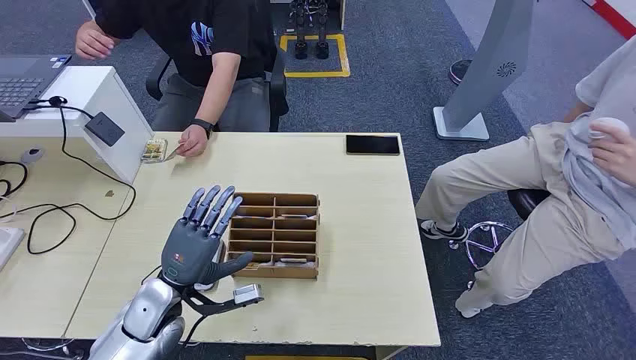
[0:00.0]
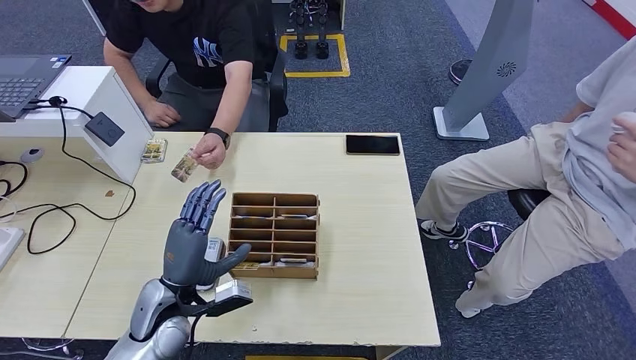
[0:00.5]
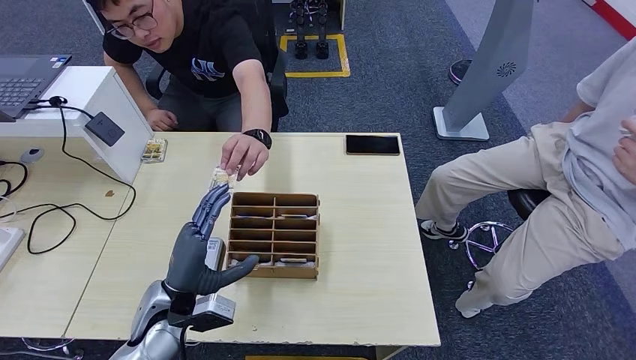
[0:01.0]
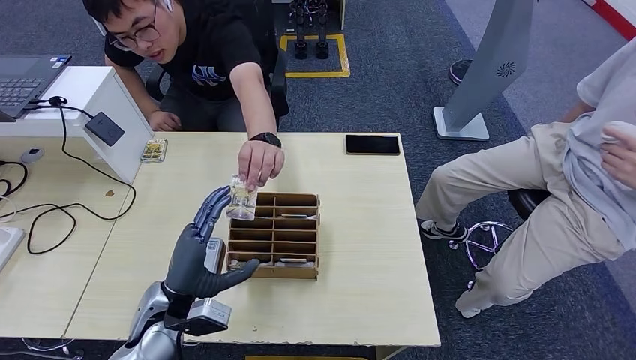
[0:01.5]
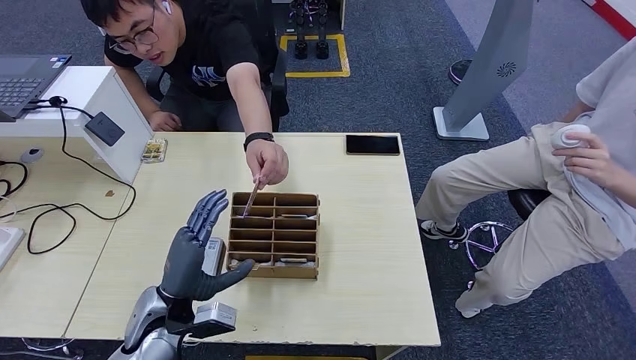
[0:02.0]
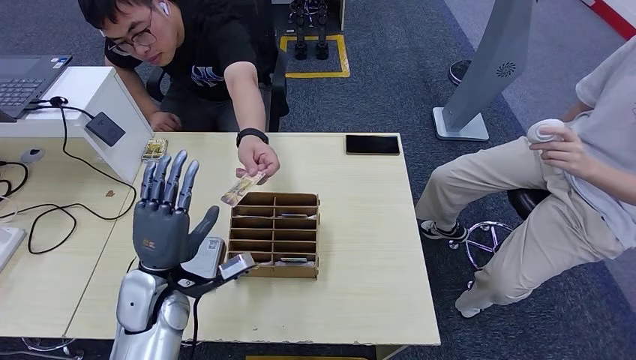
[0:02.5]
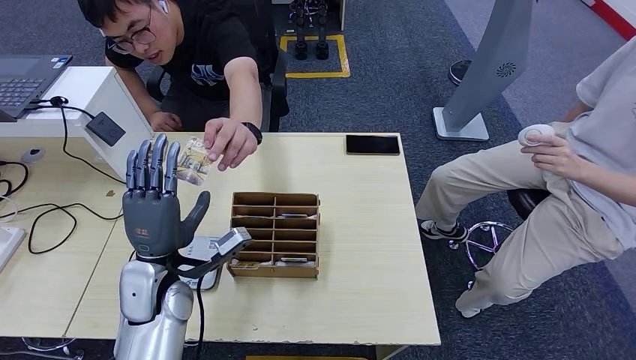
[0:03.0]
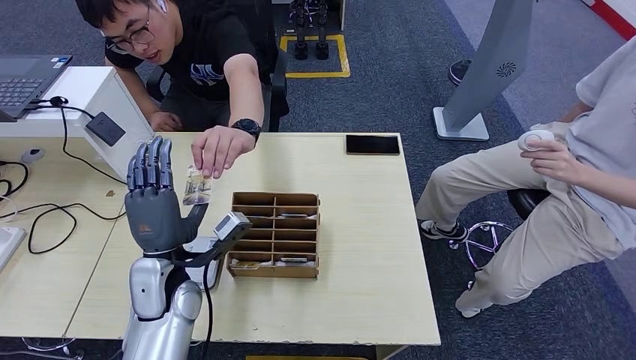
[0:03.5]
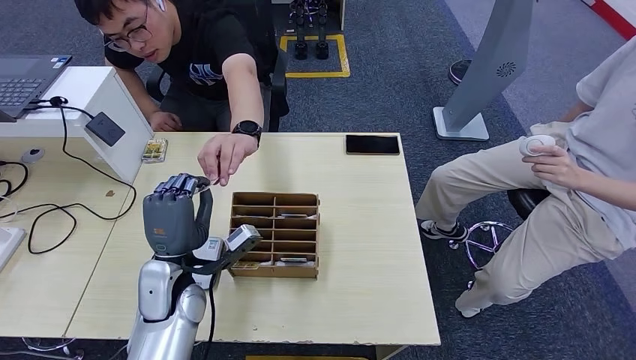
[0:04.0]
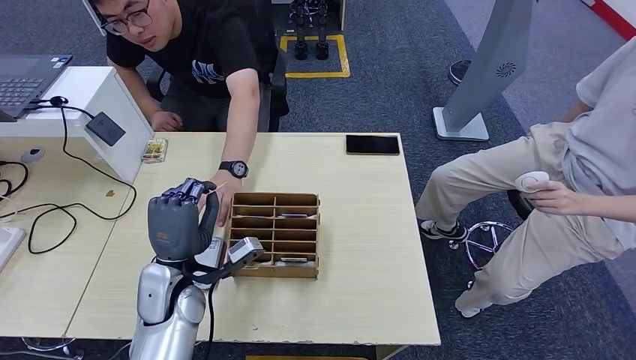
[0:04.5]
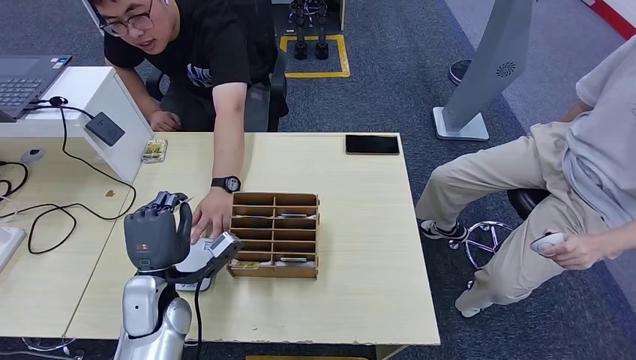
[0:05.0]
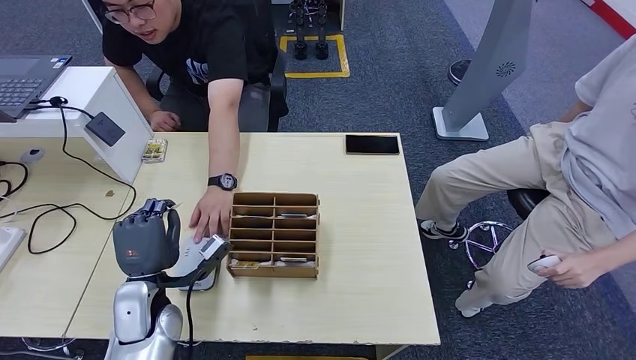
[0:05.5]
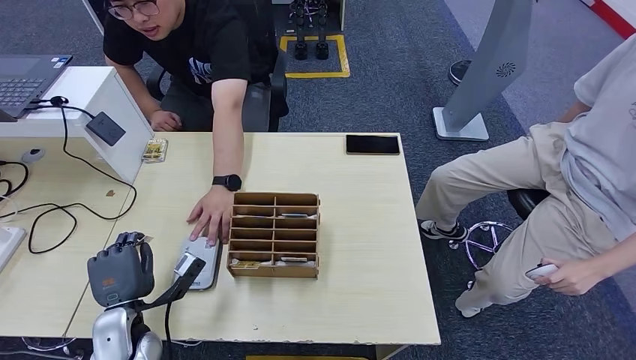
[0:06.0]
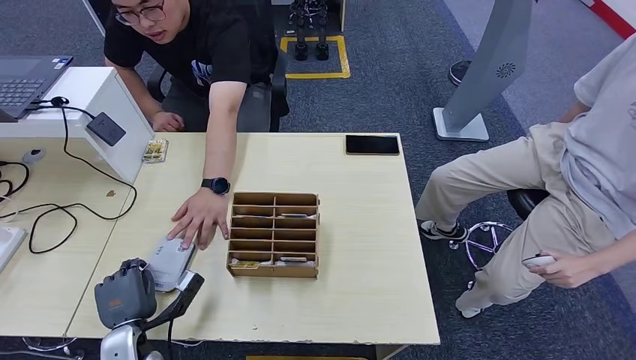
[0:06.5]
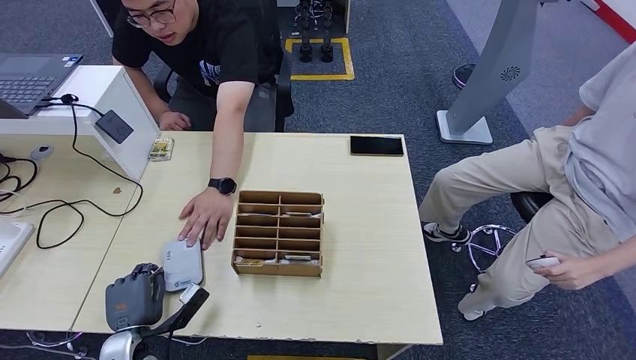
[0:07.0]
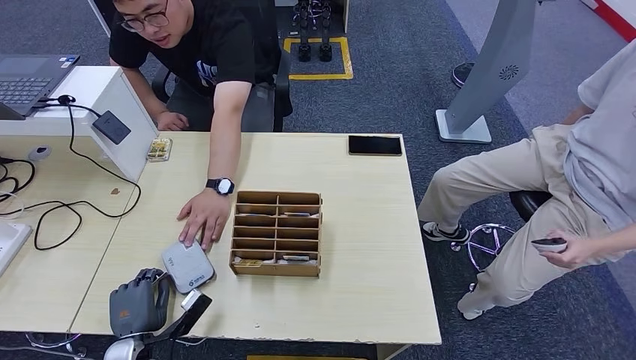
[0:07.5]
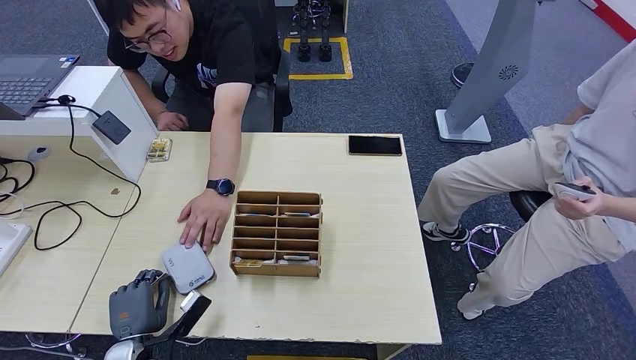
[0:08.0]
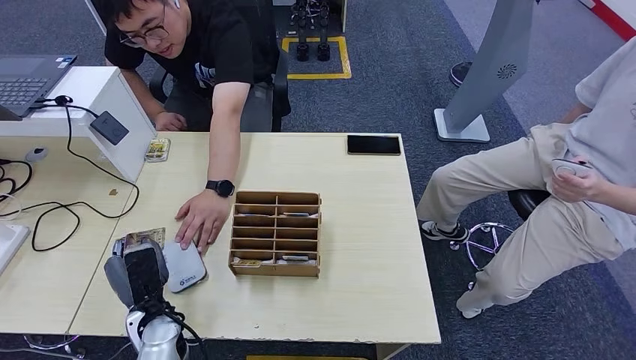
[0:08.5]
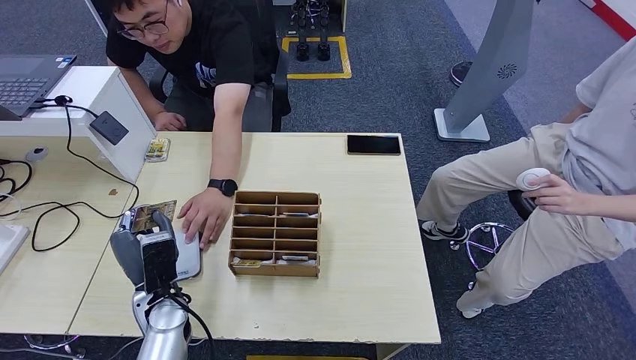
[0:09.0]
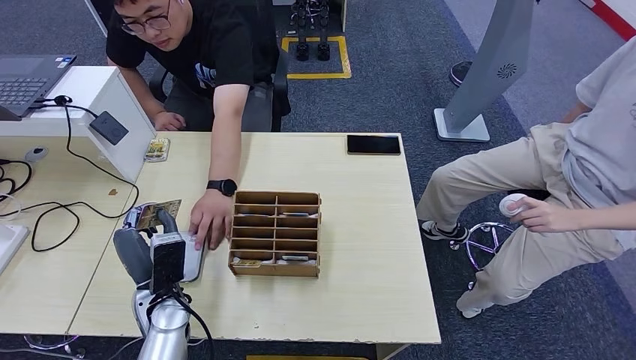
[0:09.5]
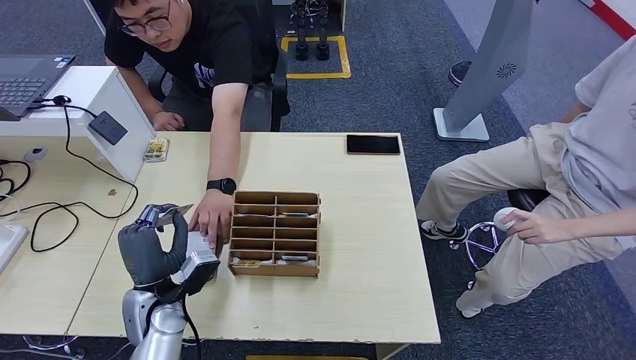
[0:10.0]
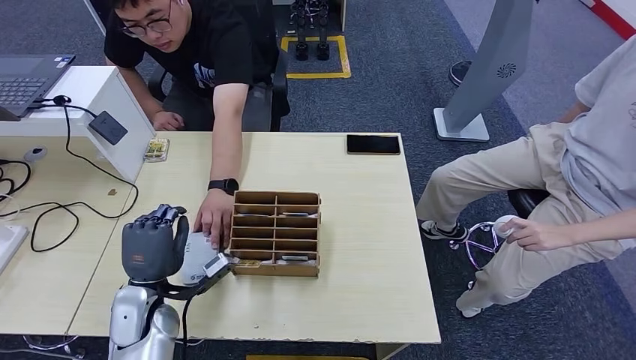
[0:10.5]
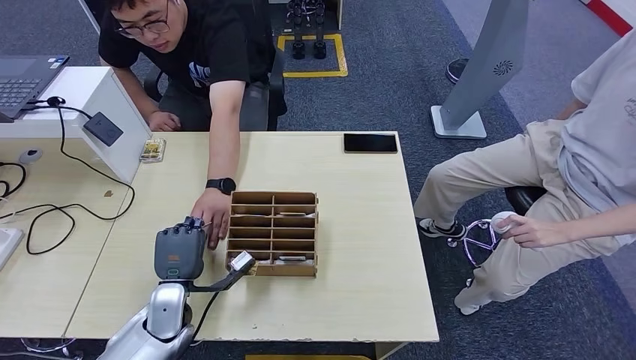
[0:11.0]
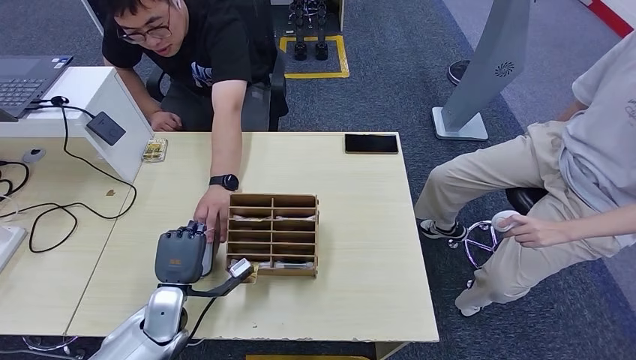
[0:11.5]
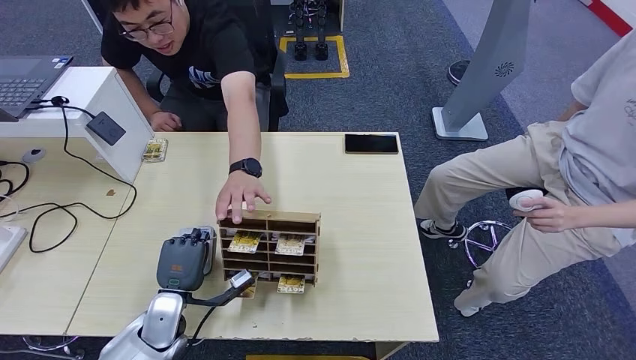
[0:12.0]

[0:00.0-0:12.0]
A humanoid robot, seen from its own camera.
Step, 0:00.0 to 0:04.0: Take the ID card from the person's hand.
0:02.0 to 0:04.0: The left hand heads forward, covering about 5 cm.
0:04.0 to 0:06.0: The left hand travels to the left, downward and backward by about 15 cm.
0:06.0 to 0:08.0: The left hand shifts about 5 cm downward.
0:08.0 to 0:10.0: The left hand travels upward, forward and to the right by about 15 cm.
0:10.0 to 0:12.0: The left hand shifts about 10 cm downward.

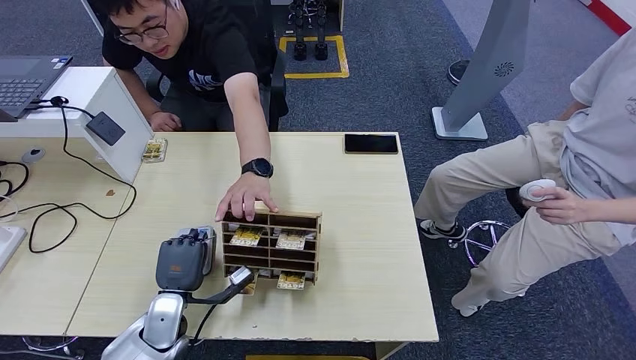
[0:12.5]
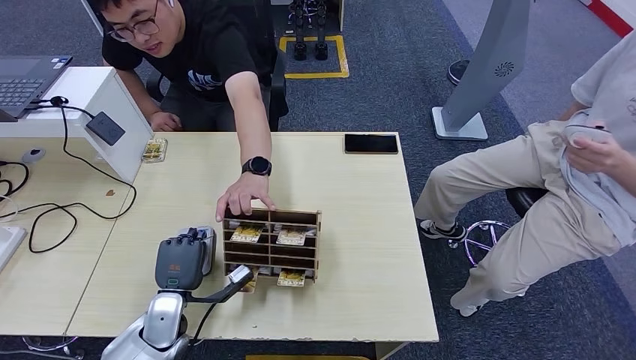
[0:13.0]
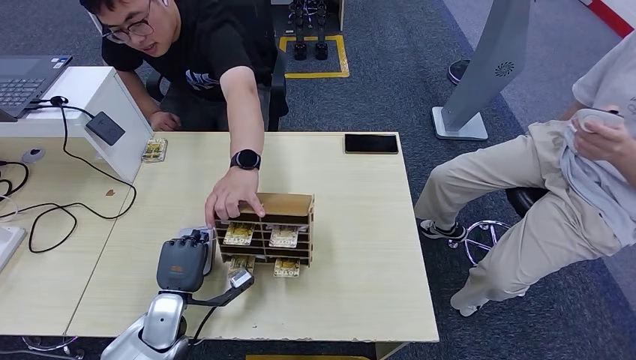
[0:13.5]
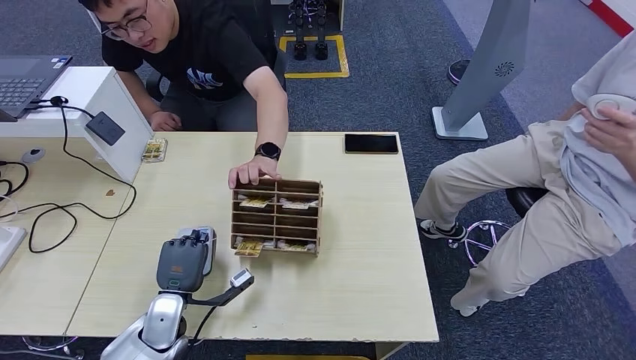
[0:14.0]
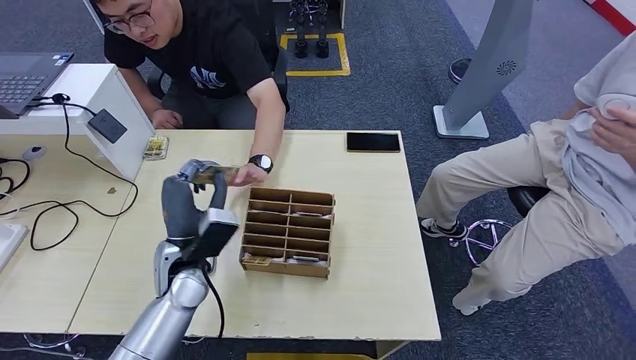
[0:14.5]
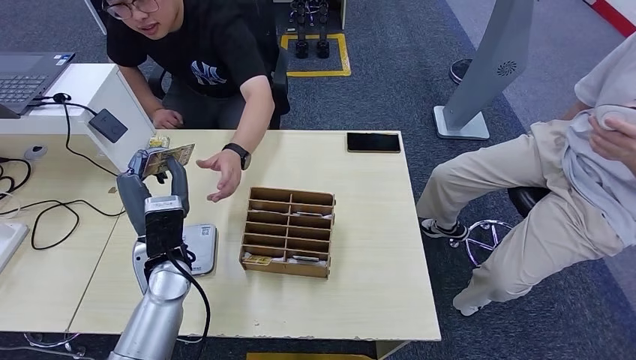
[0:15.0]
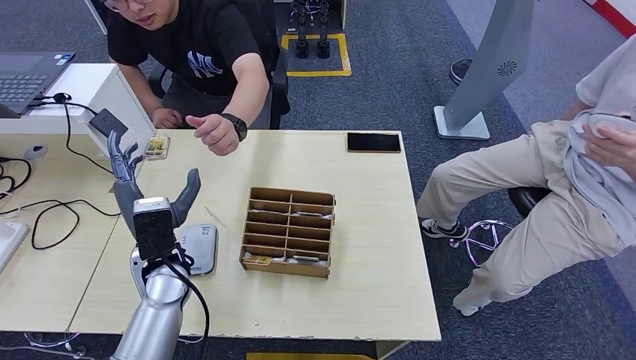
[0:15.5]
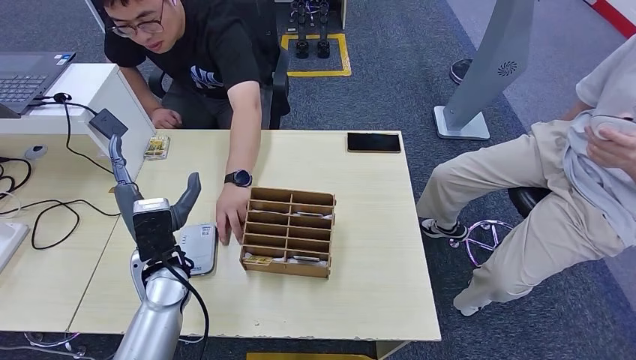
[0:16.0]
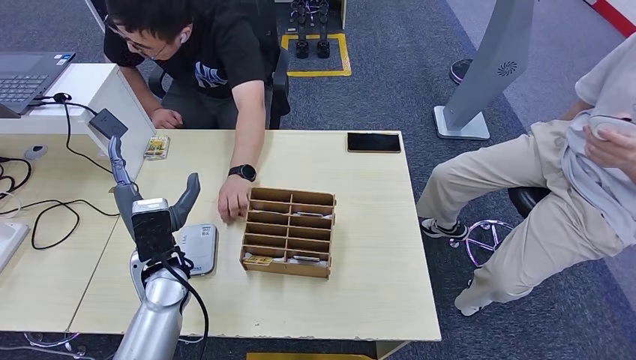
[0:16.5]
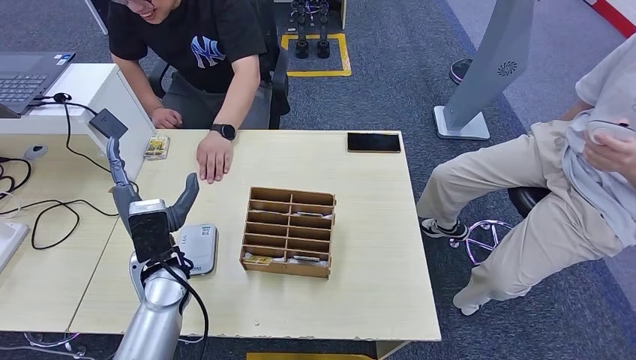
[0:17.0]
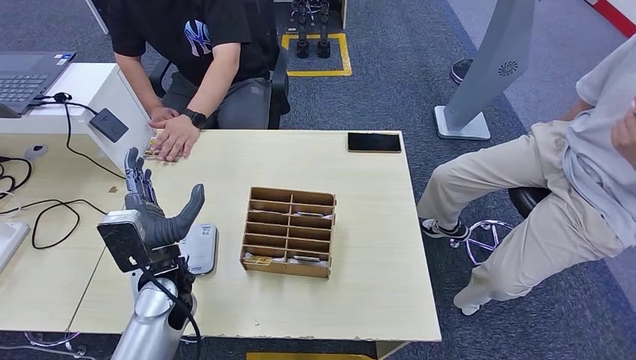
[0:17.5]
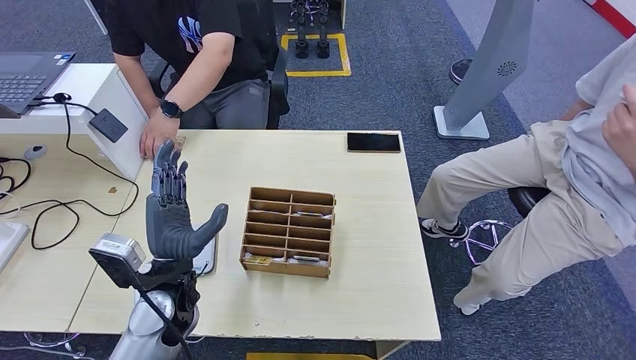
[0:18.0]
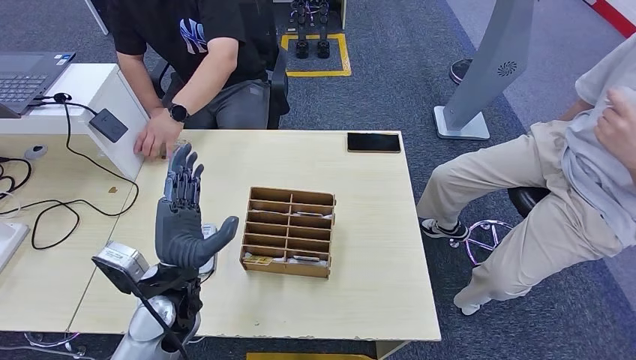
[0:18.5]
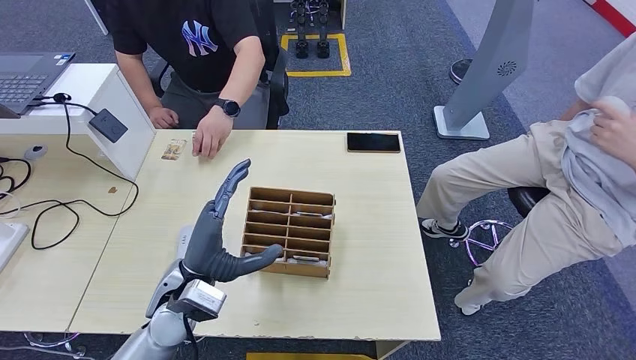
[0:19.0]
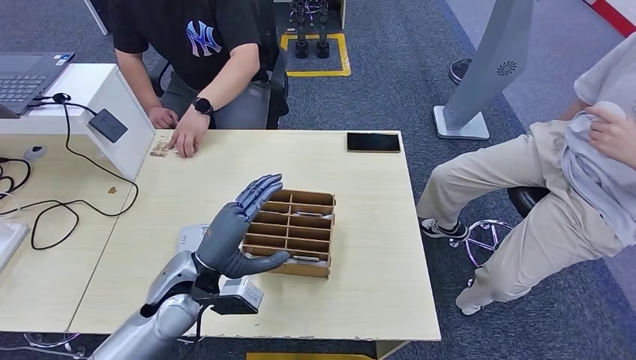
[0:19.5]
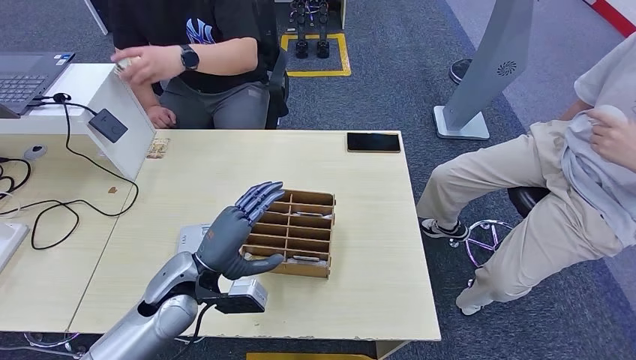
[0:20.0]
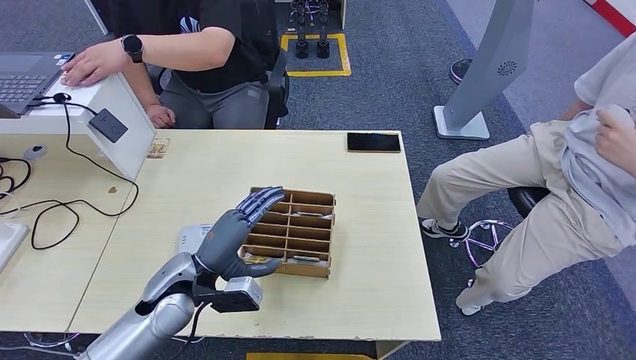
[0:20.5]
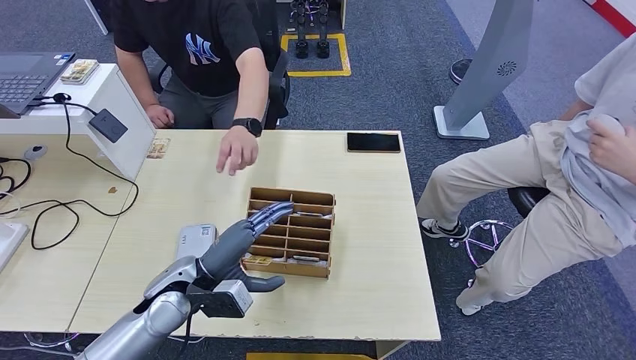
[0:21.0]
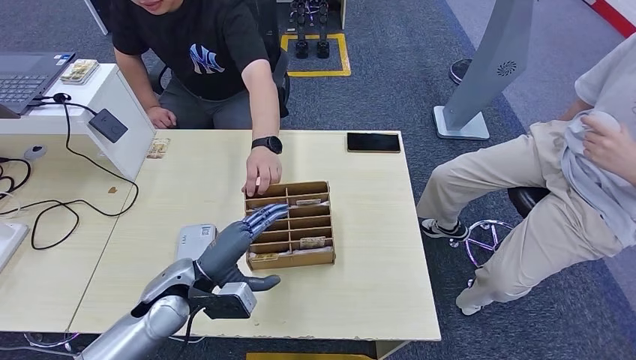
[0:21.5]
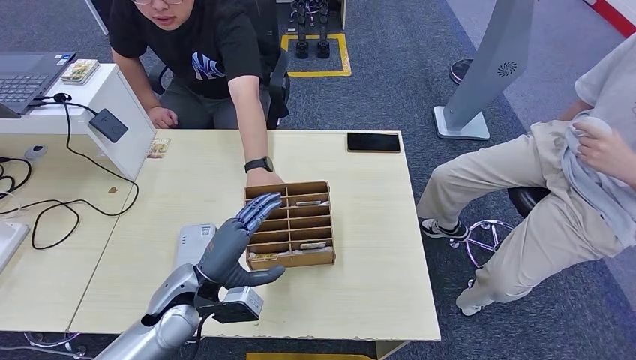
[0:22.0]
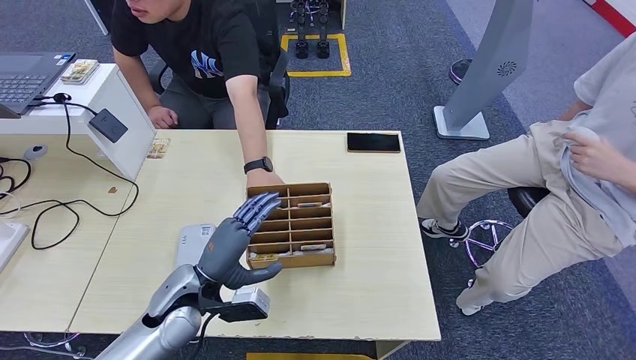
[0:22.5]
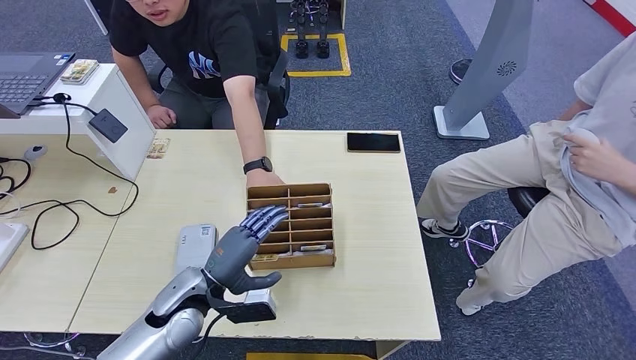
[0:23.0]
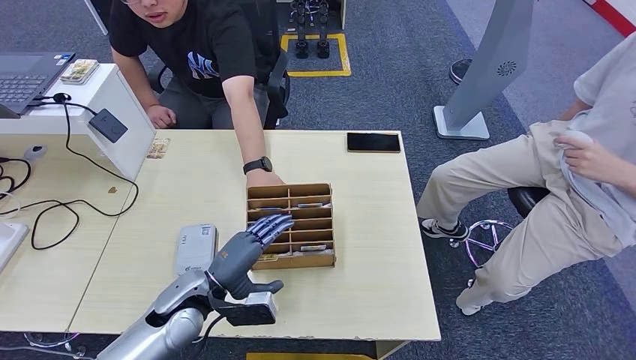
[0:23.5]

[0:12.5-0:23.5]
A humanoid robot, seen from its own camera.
Step, 0:13.5 to 0:16.0: Hand the ID card to the person.
0:16.0 to 0:18.0: The left hand changes place by approximately 5 cm.
0:20.0 to 0:23.5: The hands make only small movements.
